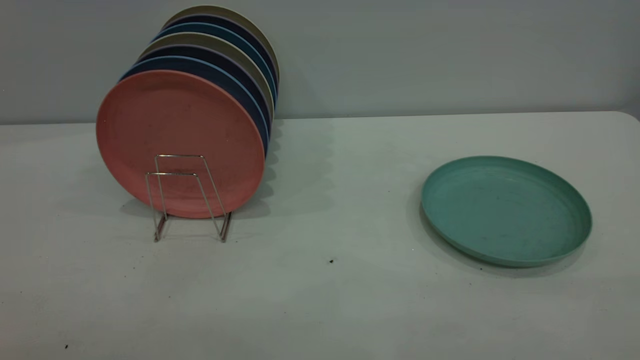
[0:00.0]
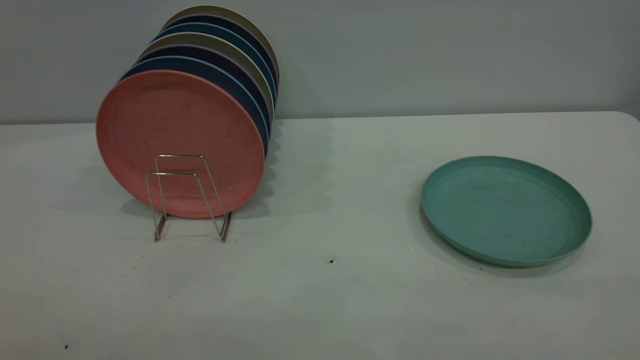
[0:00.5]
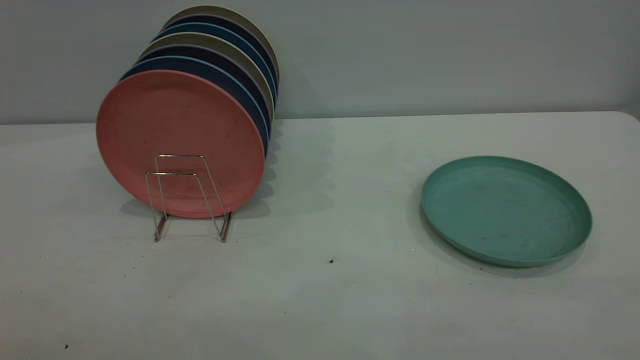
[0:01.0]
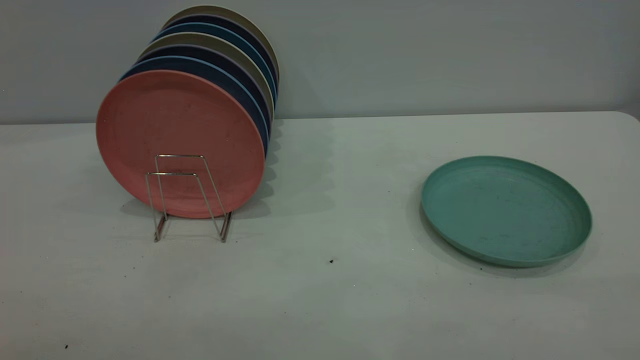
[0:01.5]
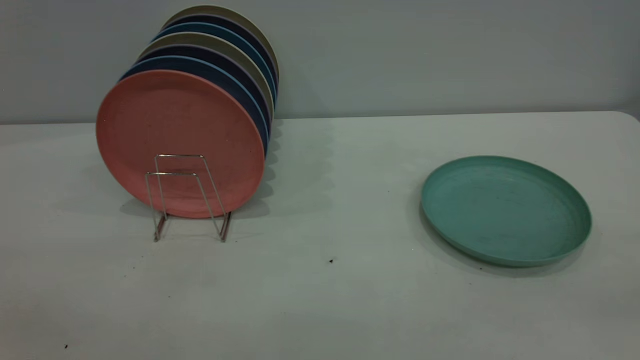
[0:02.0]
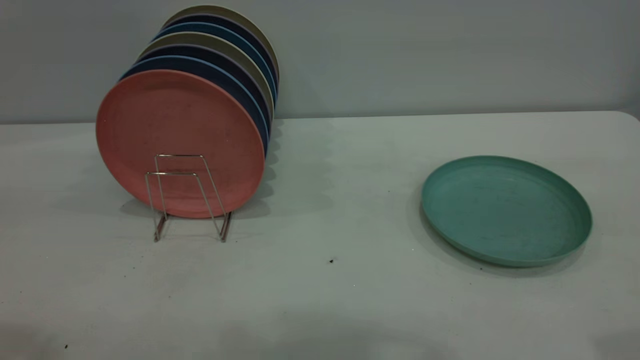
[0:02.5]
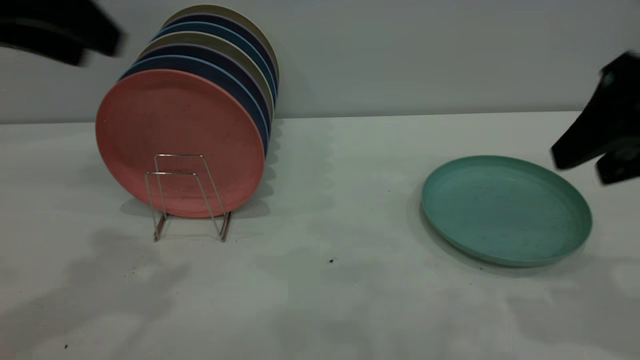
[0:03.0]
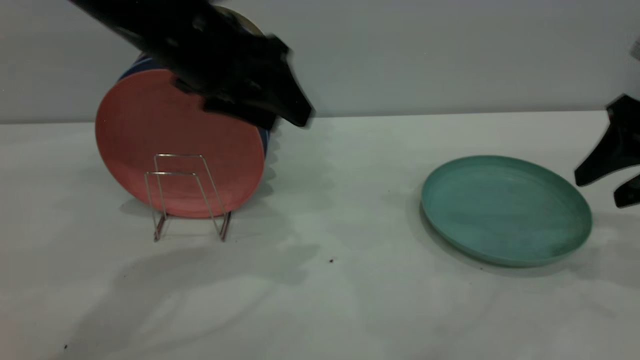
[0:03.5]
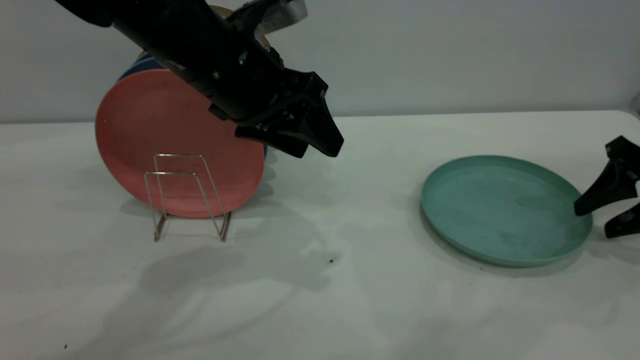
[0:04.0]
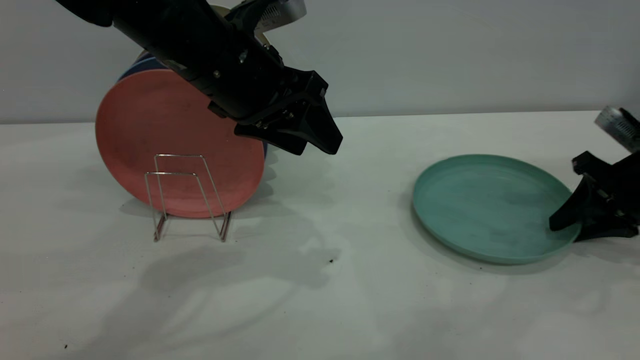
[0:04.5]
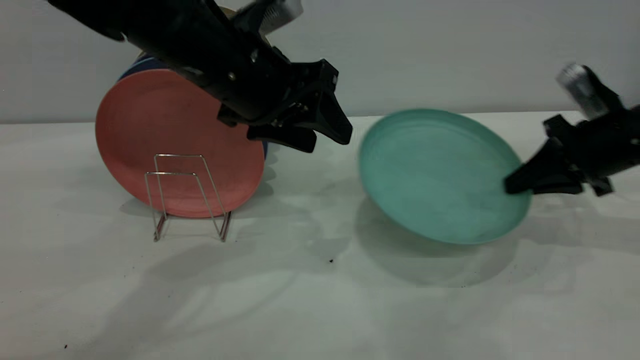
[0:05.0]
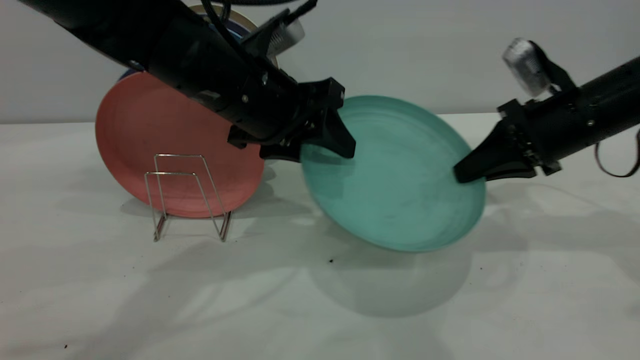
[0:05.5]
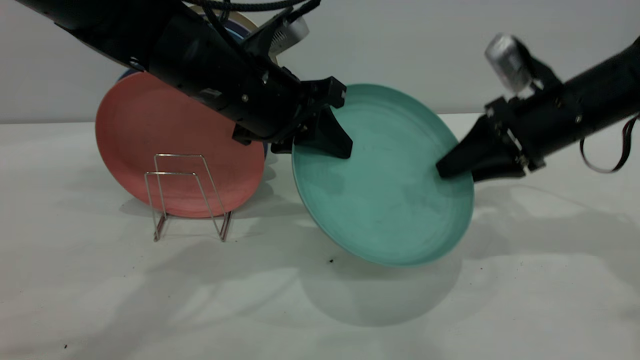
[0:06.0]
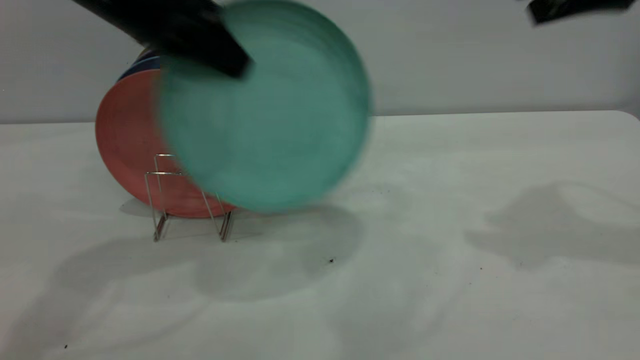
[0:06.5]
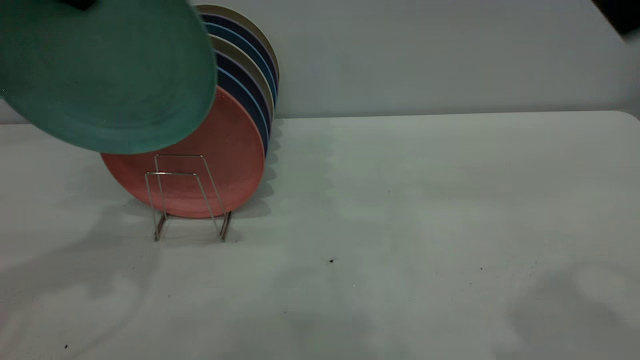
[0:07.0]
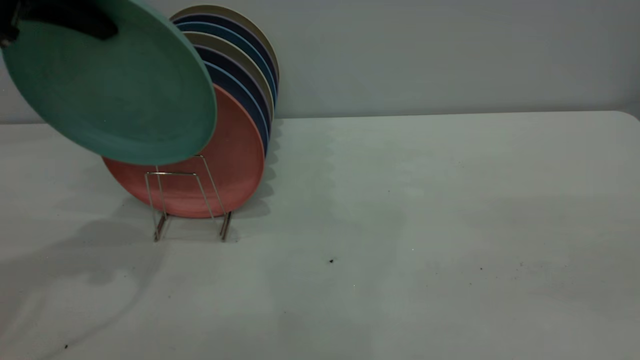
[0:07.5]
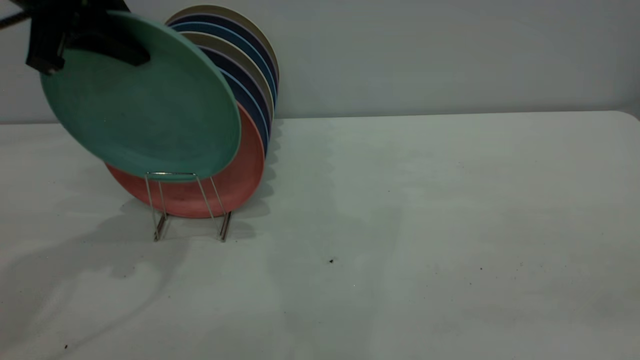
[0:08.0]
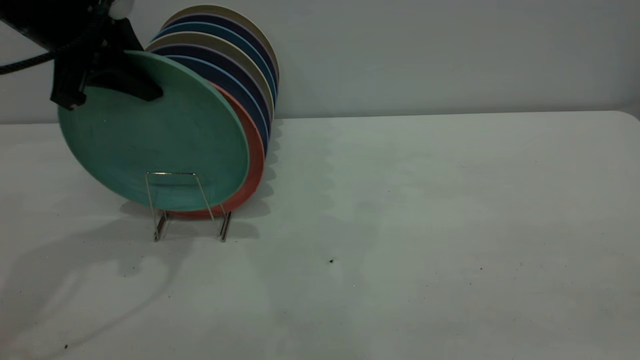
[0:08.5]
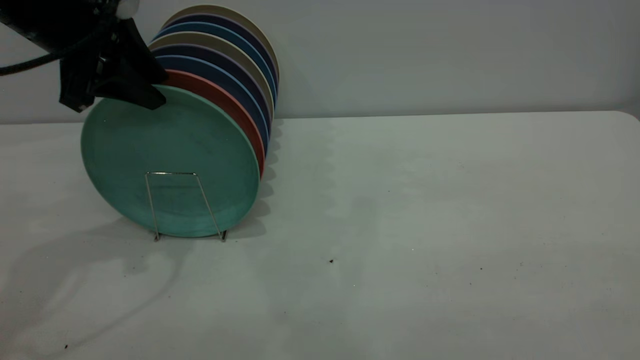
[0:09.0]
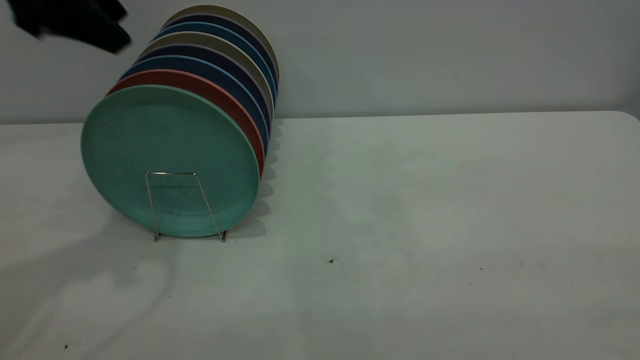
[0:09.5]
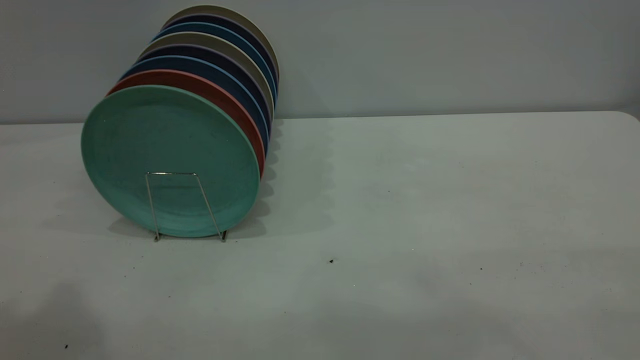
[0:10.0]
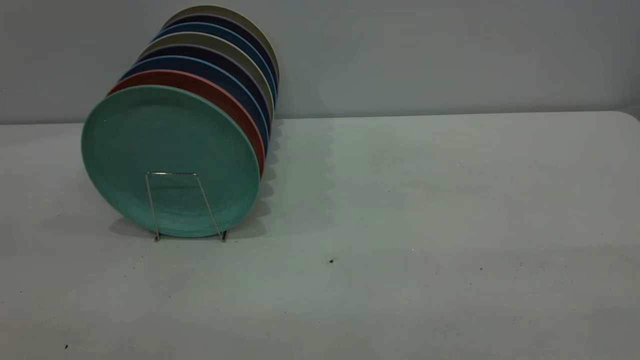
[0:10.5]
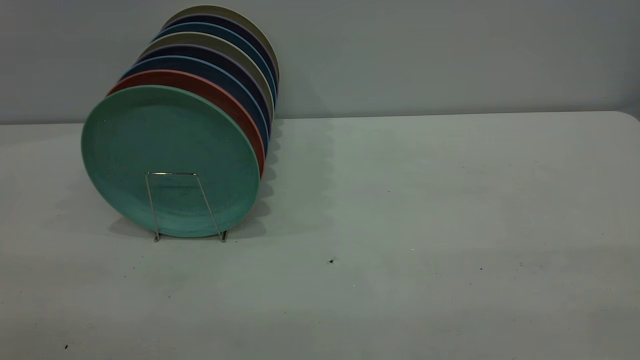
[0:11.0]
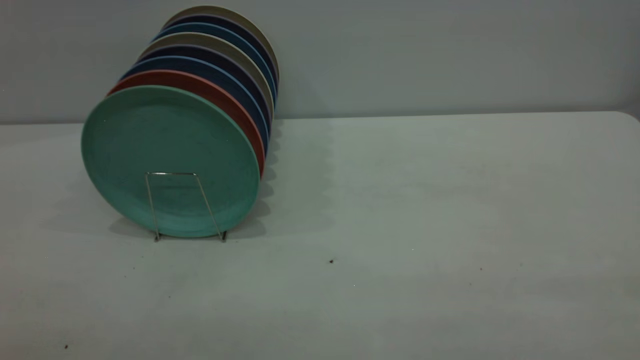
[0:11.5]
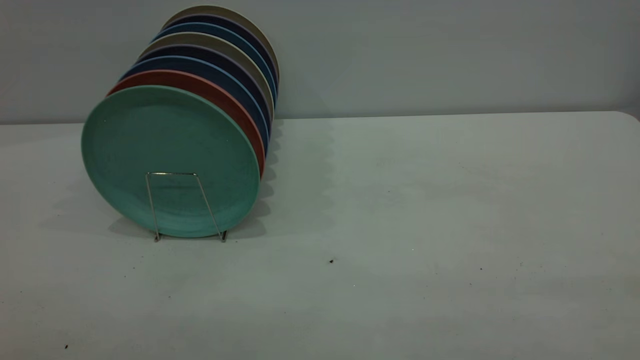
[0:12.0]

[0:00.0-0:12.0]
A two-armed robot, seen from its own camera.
Task of the whole recording: the right gripper grasp the green plate, the right gripper pass the green plate to the left gripper, and the left gripper place the green plate on the plate rack.
Step, 0:00.0 to 0:04.5: Pick up the plate with the right gripper.
Step, 0:05.0 to 0:06.0: Pass the plate from the right gripper to the left gripper.
Step, 0:06.5 to 0:09.0: Place the plate on the shelf.
0:02.0 to 0:04.0: The right gripper goes roughly 40 cm forward and downward, while the left gripper heads forward, to the right and downward, covering roughly 40 cm.
0:04.0 to 0:06.0: The right gripper goes about 15 cm to the left, and closes, then reopens. The left gripper closes.
0:06.0 to 0:08.0: The right gripper heads backward and upward, covering some 40 cm, while the left gripper heads to the left and upward, covering approximately 20 cm.
0:08.0 to 0:10.0: The left gripper heads backward and upward, covering some 25 cm, and opens its fingers.

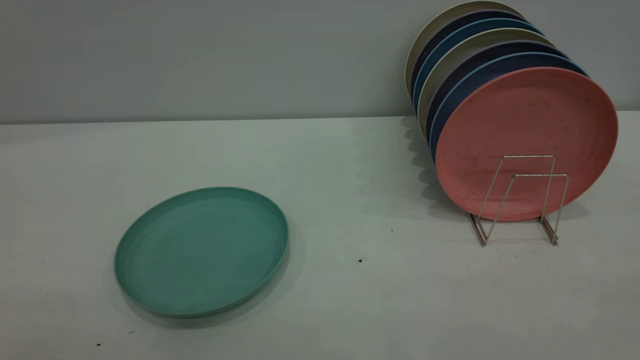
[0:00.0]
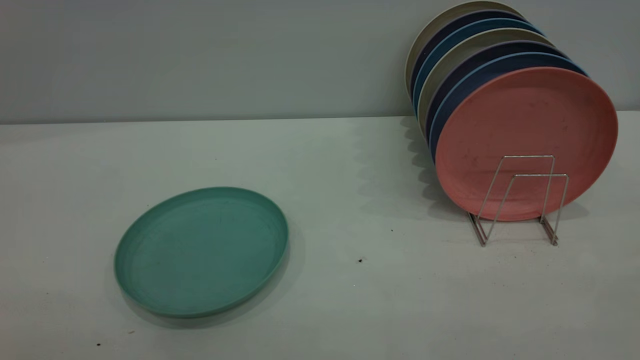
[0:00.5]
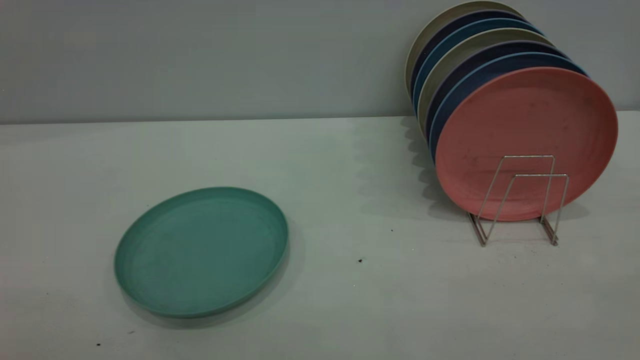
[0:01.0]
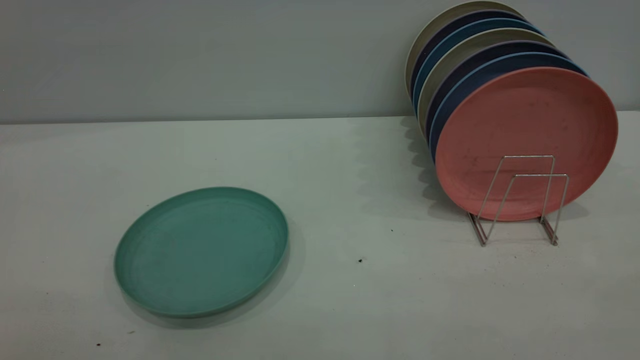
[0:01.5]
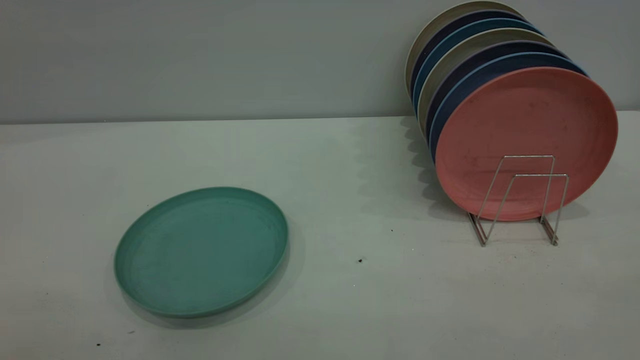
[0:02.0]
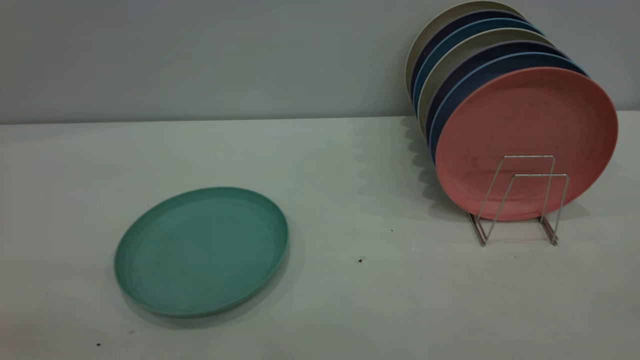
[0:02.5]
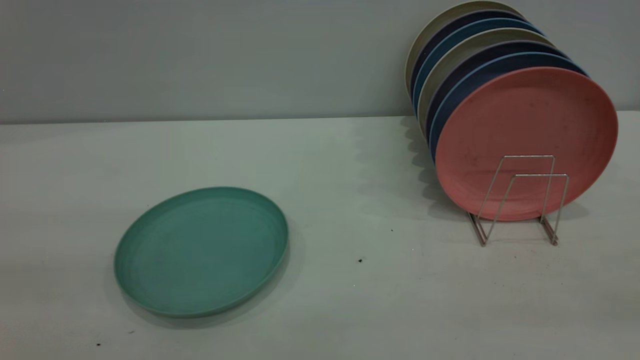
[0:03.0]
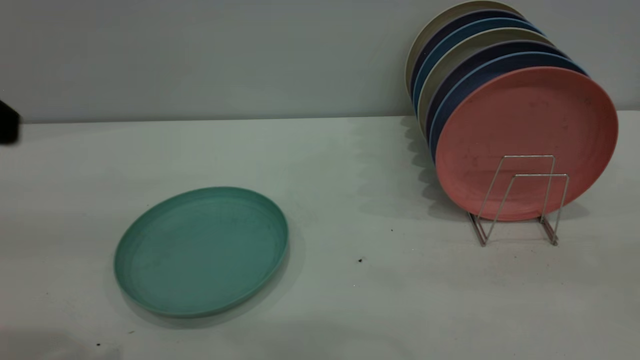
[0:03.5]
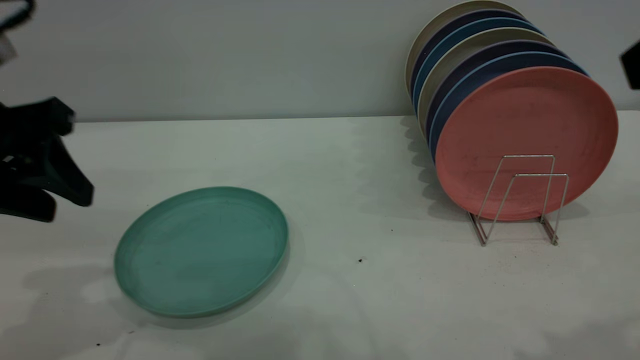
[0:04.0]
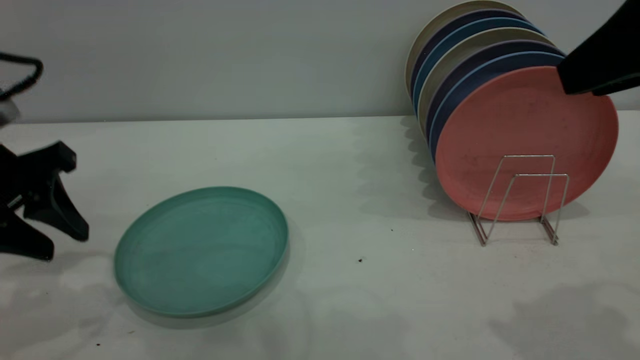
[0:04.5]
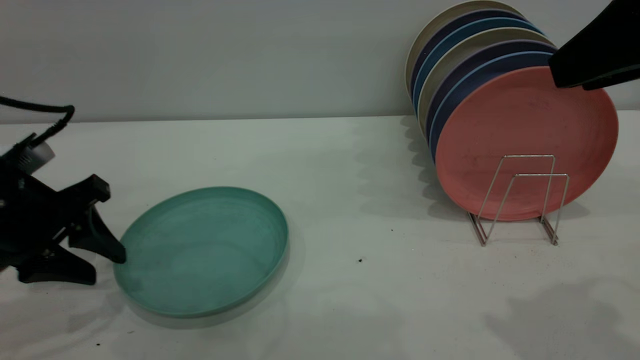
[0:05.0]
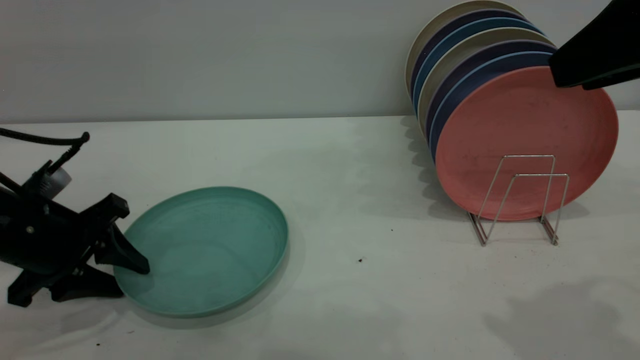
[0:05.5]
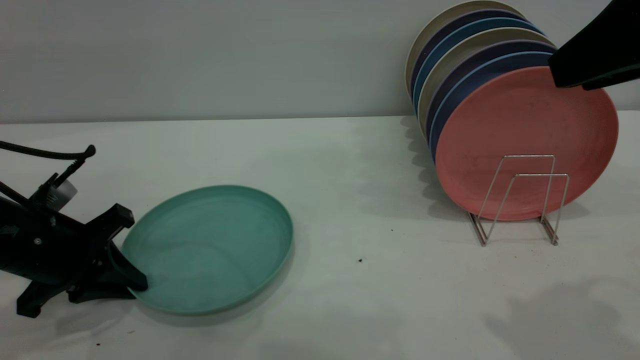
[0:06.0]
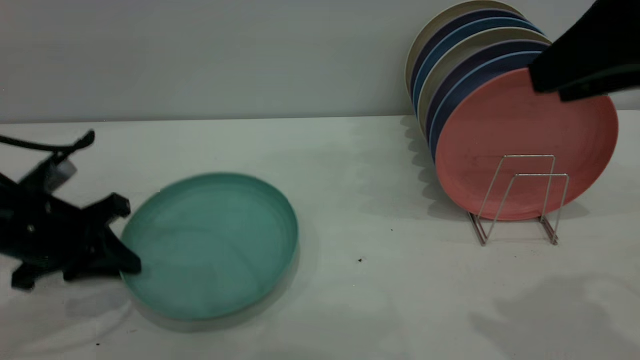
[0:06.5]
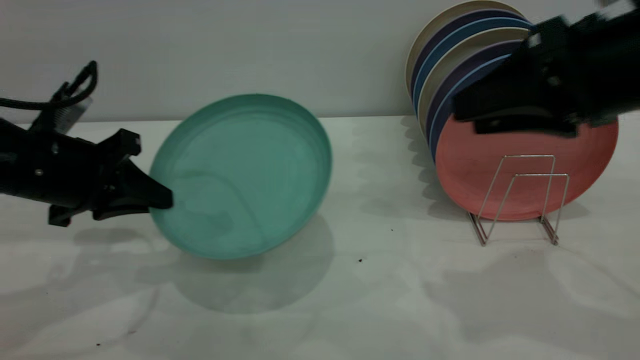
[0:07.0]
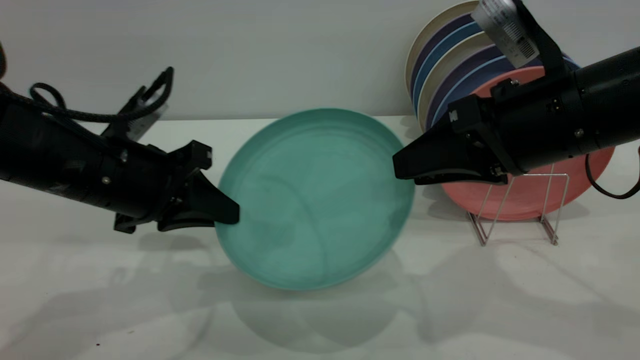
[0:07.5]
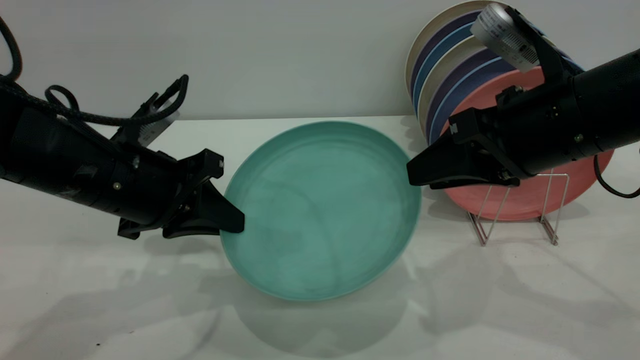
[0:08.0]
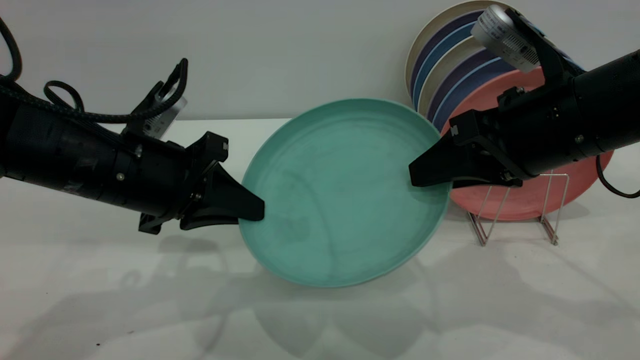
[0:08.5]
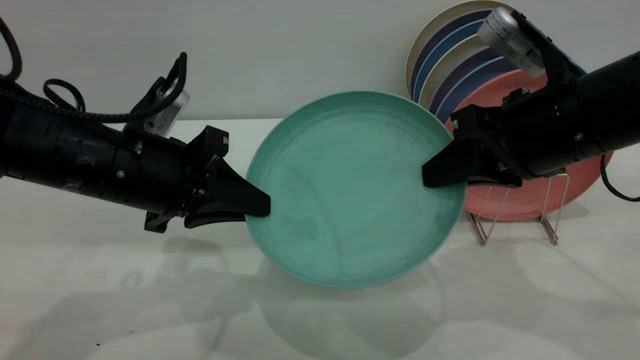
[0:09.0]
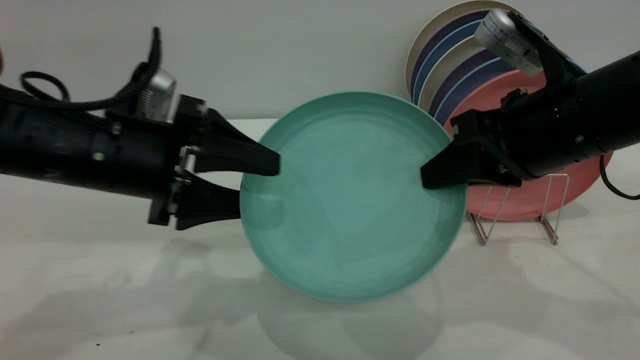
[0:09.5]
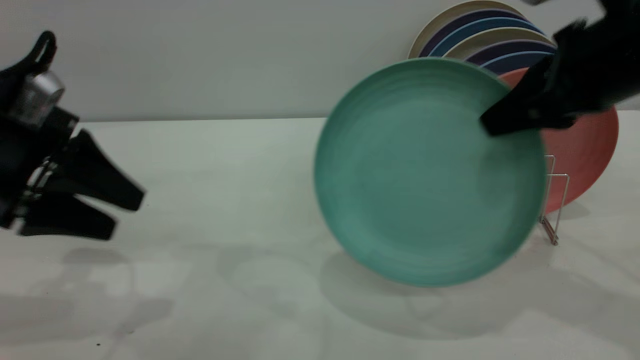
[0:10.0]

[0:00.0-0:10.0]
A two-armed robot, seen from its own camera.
Task of the whole recording: the left gripper grasp the green plate, the left gripper pass the green plate to the right gripper, and the right gripper place the green plate on the plate rack.
Step, 0:00.0 to 0:06.0: Pick up the plate with the left gripper.
Step, 0:06.5 to 0:09.5: Pass the plate from the left gripper to the right gripper.
0:00.0 to 0:02.0: Both grippers stay about where they are.
0:02.0 to 0:04.0: The left gripper travels forward by about 30 cm.
0:04.0 to 0:06.0: The left gripper travels downward by roughly 15 cm, and closes up.
0:06.0 to 0:08.0: The left gripper moves to the right and upward, some 10 cm, while the right gripper is displaced downward, forward and to the left by some 15 cm.
0:08.0 to 0:10.0: The right gripper shifts some 5 cm upward, and closes its fingers; the left gripper is displaced to the left and upward by some 10 cm, and opens.
